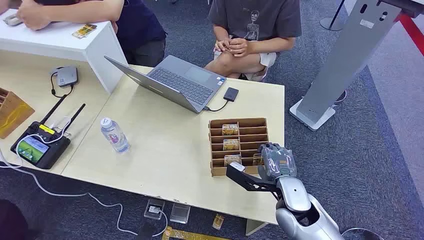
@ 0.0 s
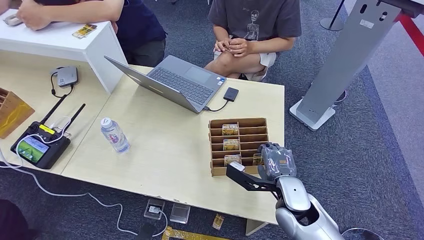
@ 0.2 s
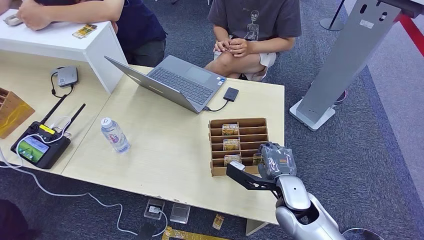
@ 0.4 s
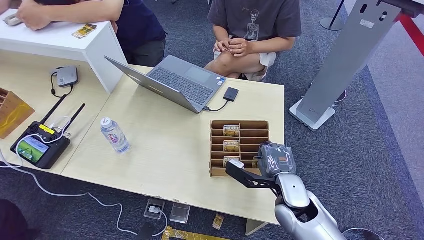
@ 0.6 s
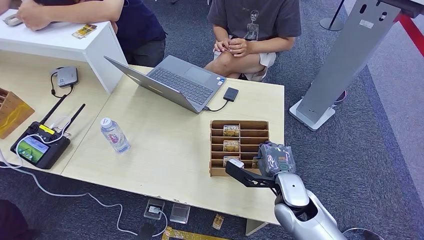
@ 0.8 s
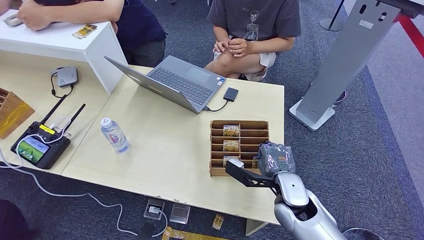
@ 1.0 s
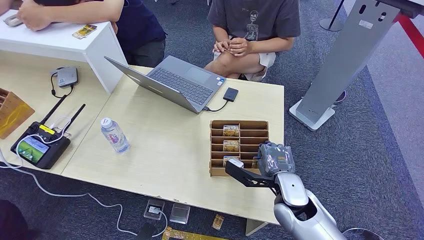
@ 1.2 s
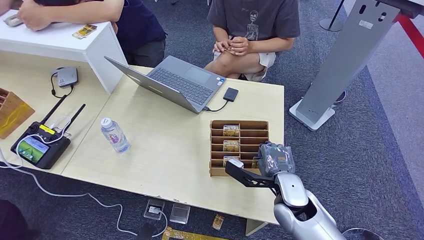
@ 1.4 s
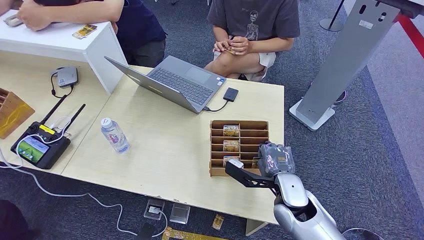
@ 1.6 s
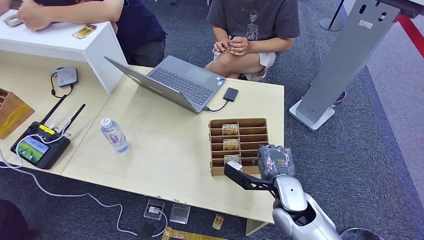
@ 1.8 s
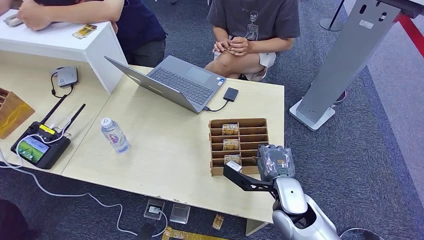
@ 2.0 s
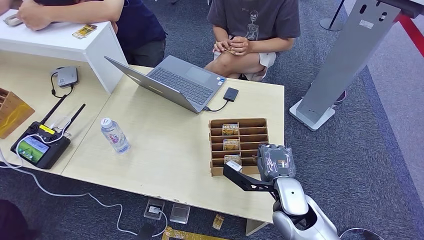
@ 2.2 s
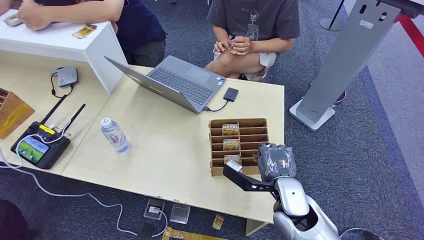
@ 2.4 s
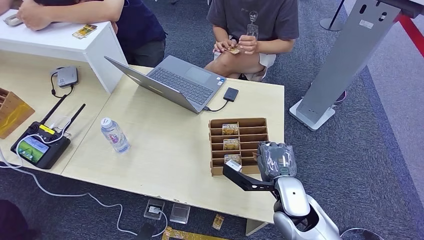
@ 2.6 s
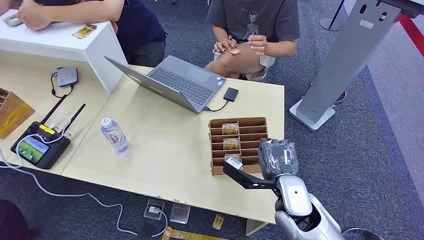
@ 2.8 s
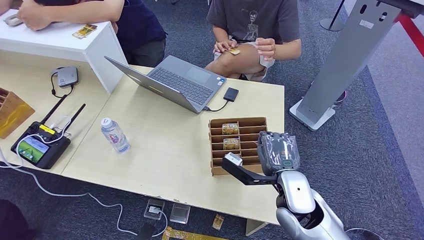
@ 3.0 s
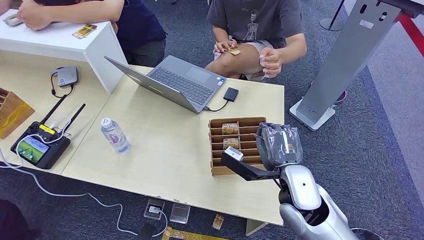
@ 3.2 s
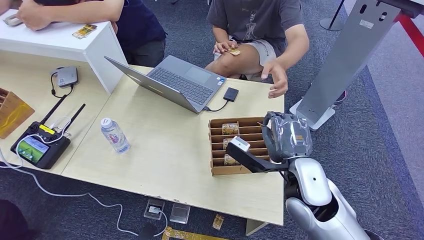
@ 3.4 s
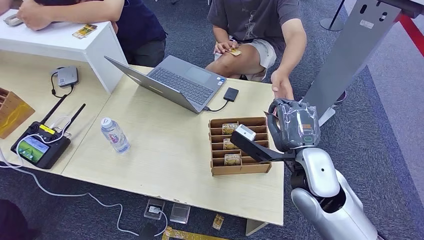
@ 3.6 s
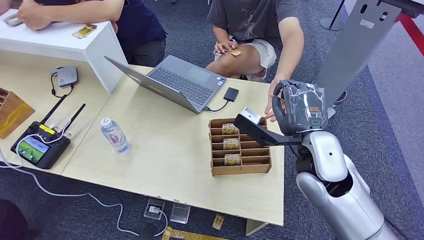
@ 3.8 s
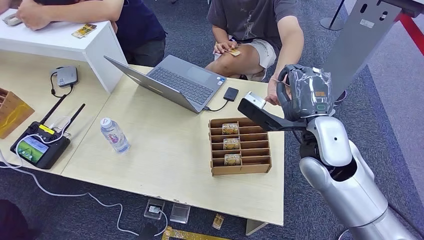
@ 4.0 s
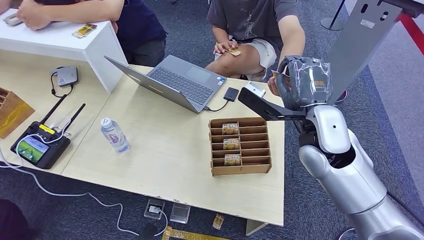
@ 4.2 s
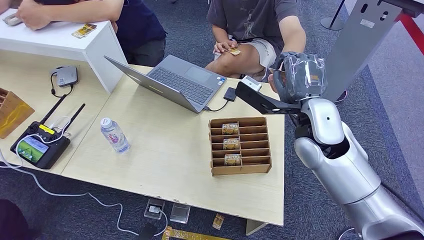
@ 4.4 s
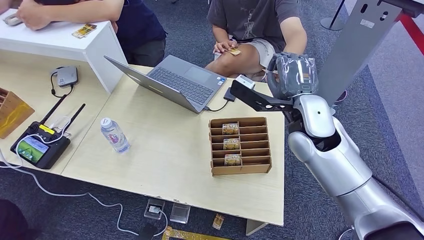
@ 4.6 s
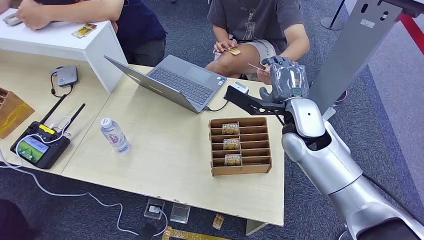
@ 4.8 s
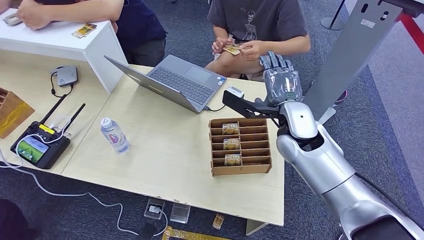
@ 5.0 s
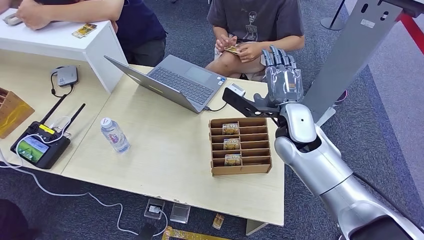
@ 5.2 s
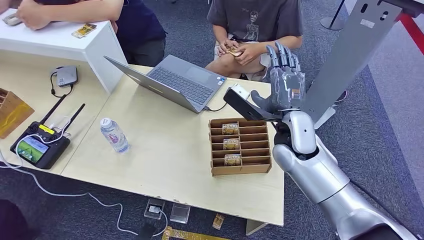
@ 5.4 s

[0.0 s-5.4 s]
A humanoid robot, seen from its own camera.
Step, 0.0 to 3.0 s: Pick up the key card from the card box.
Step, 3.2 to 5.2 s: Hand the key card to the target.
1.4 to 2.8 s: The hands move only a little.
2.8 to 4.0 s: The right hand travels upward and forward by some 15 cm.
4.0 to 5.4 s: The right hand shifts by some 5 cm.
